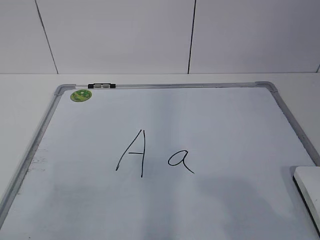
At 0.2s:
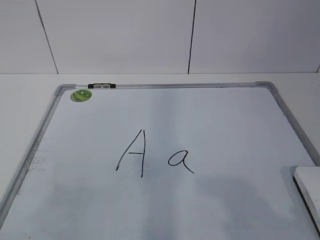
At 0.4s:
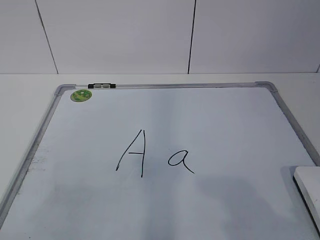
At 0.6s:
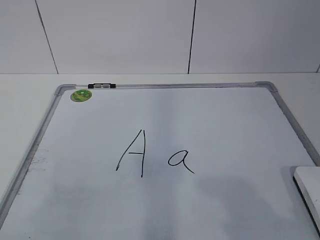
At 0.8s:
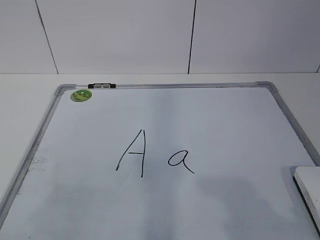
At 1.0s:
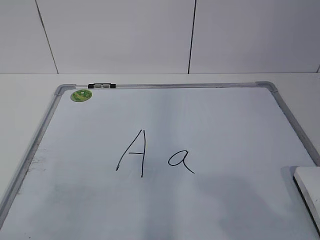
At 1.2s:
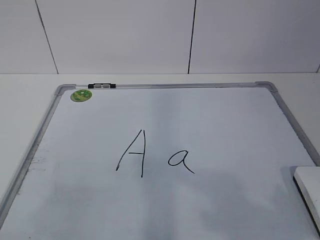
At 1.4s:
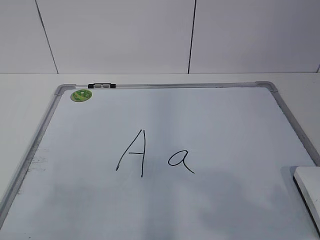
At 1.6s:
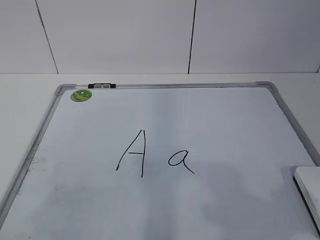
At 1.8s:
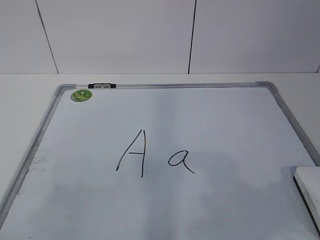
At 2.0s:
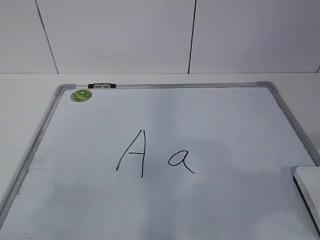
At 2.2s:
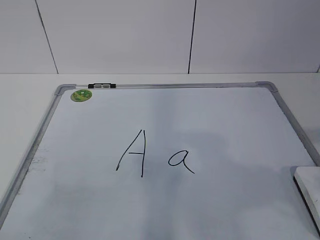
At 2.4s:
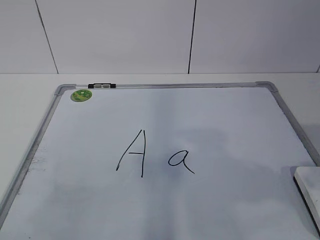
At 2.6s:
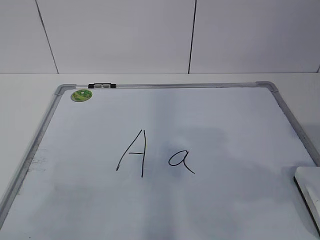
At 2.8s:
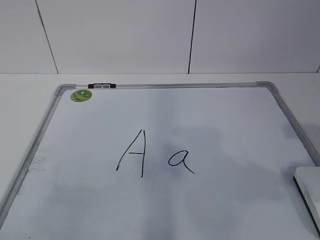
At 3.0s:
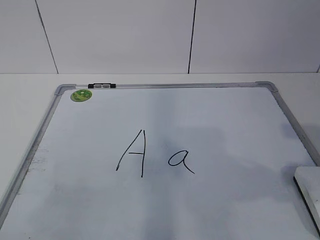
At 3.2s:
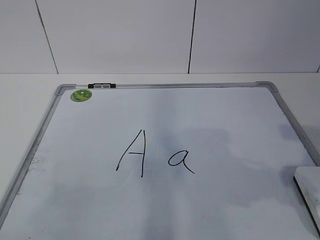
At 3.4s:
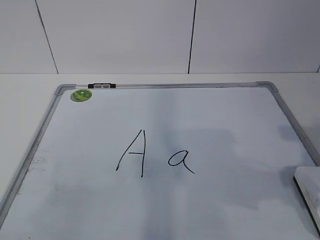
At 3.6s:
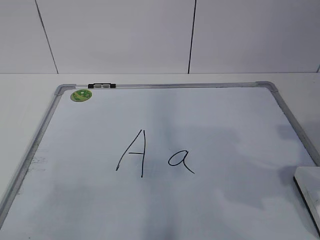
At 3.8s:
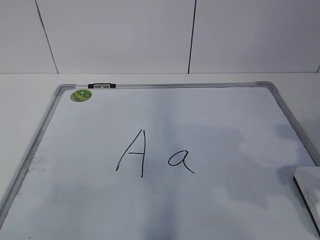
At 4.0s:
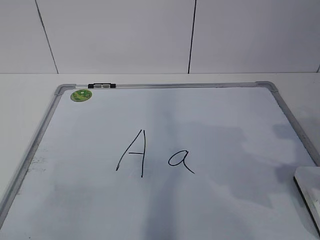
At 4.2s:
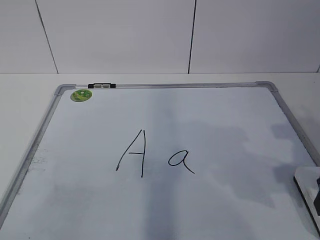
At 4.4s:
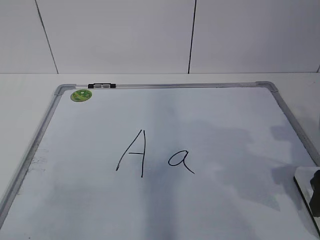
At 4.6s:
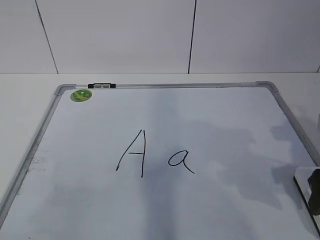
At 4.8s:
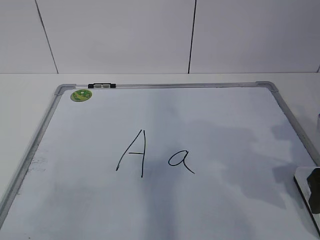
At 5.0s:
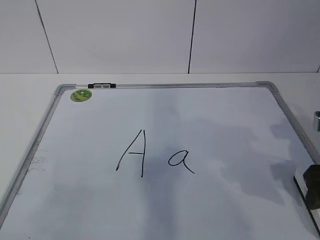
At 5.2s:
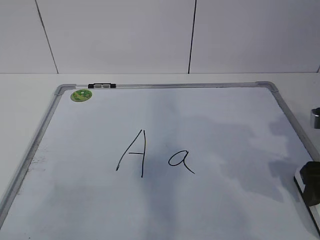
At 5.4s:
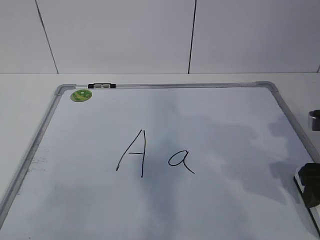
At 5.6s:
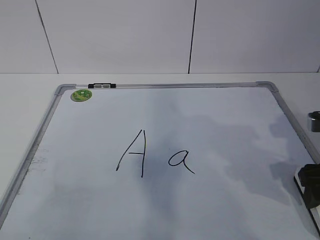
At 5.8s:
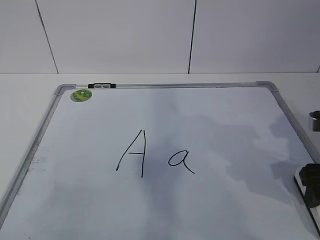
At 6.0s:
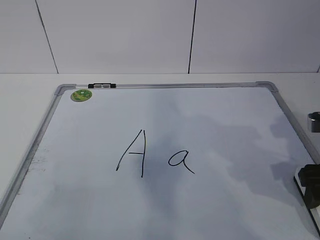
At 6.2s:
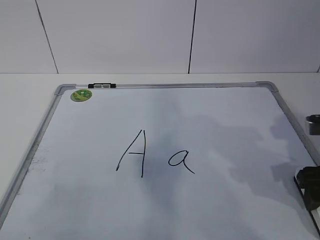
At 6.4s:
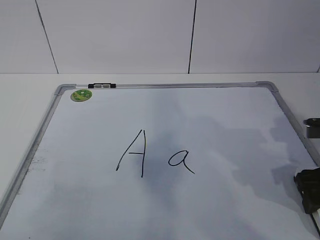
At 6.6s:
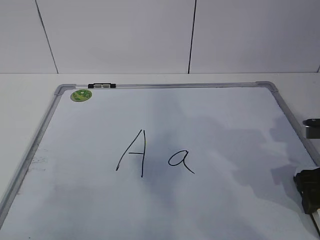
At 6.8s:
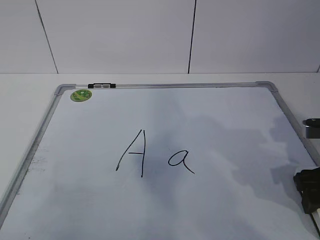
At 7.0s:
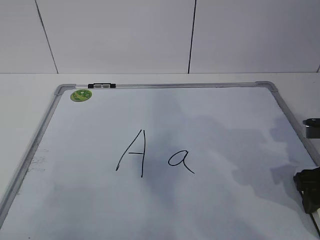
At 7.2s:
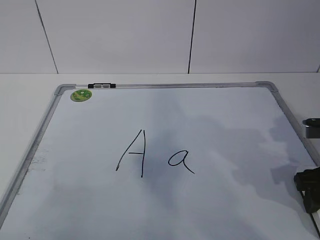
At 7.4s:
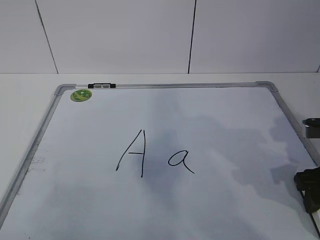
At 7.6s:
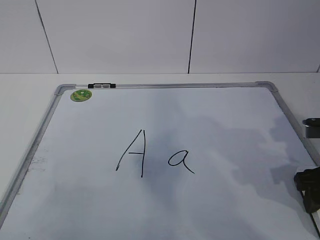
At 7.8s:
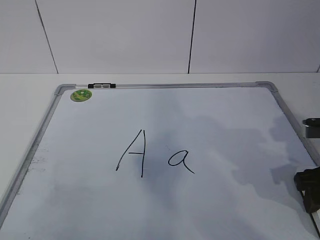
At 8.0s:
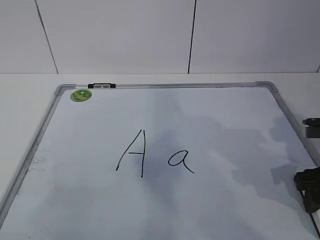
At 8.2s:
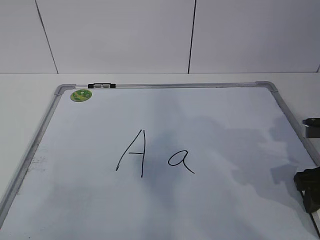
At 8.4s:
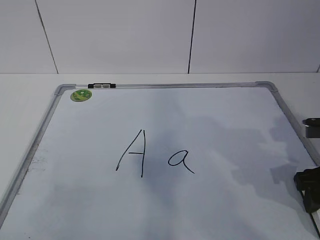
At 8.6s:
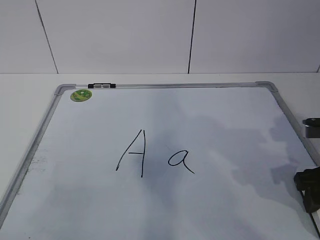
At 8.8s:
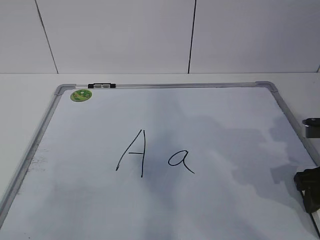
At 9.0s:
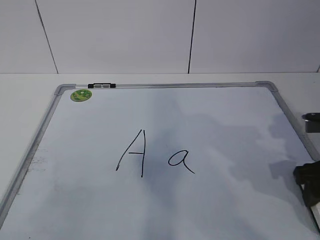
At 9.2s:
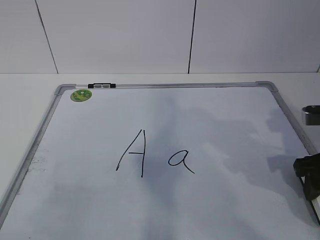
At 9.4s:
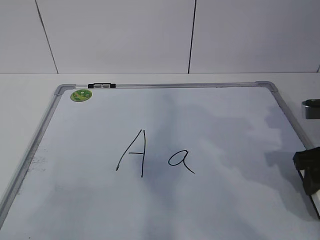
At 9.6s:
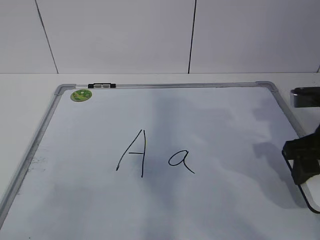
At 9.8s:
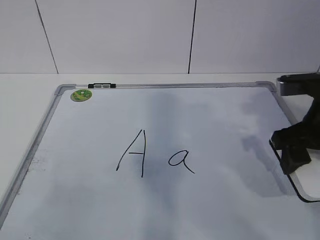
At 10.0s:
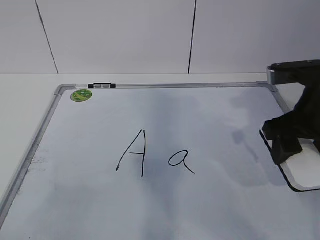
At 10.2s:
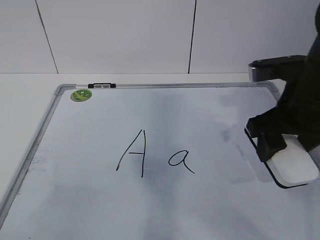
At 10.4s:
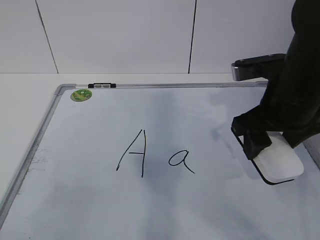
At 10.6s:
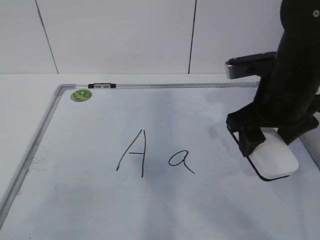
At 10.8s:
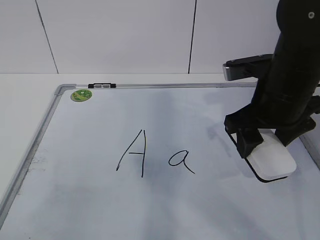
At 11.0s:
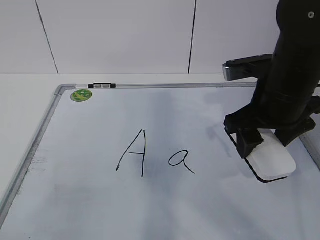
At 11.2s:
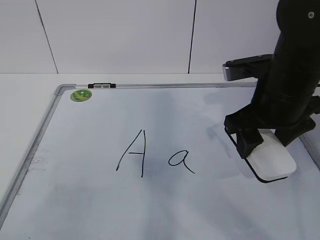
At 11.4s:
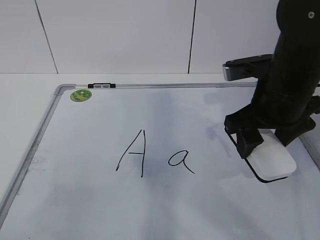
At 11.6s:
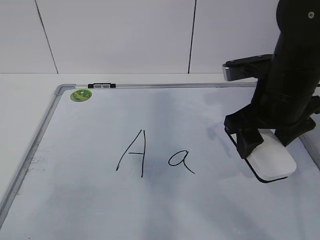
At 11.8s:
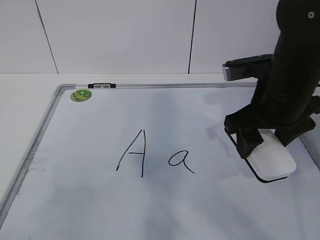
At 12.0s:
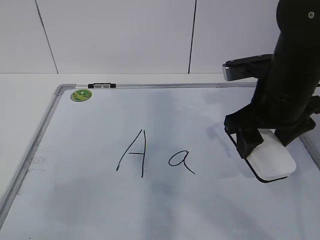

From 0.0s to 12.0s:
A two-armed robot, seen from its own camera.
Task of the whole recording: pick up the eraser on the blackboard and erase the letter "a".
From 3.0s to 4.4s: The right gripper is displaced forward and downward by approximately 10 cm.
From 4.4s to 6.0s: The grippers make only small movements.
From 6.0s to 7.6s: The right gripper closes.
From 7.6s to 9.0s: Neither gripper changes place.
From 9.0s to 10.4s: The right gripper moves to the left and upward, approximately 10 cm.
From 10.4s to 12.0s: The grippers make only small movements.

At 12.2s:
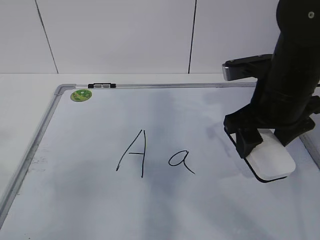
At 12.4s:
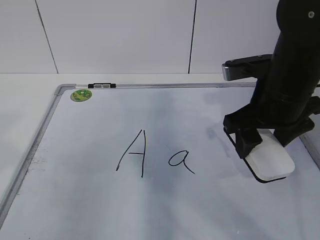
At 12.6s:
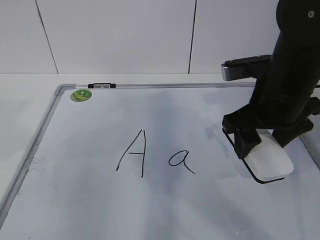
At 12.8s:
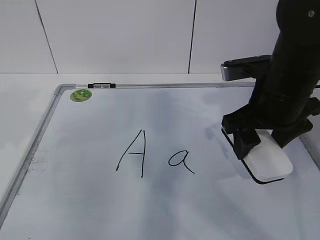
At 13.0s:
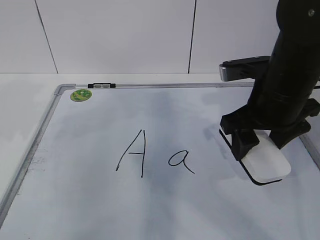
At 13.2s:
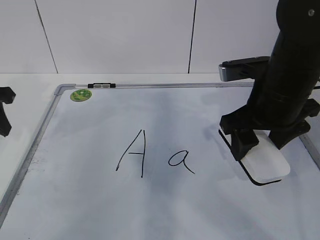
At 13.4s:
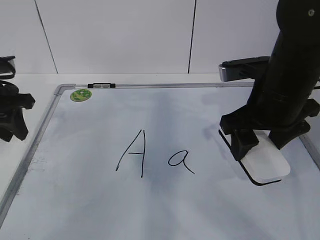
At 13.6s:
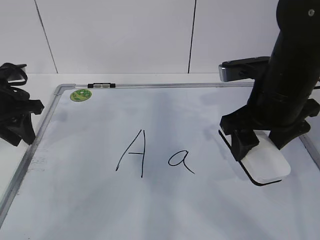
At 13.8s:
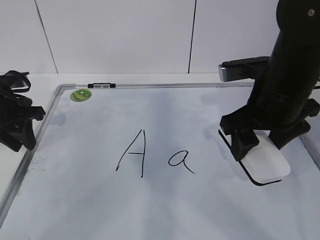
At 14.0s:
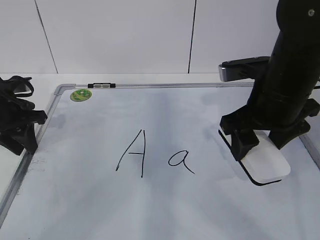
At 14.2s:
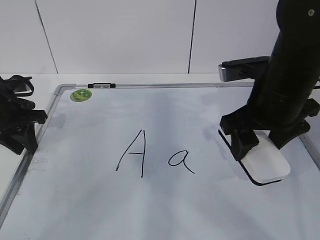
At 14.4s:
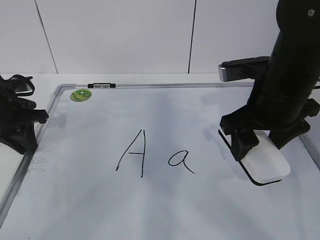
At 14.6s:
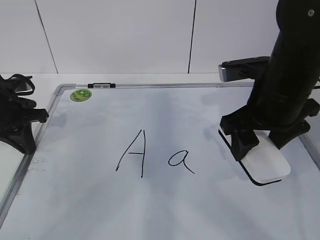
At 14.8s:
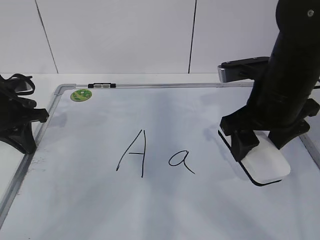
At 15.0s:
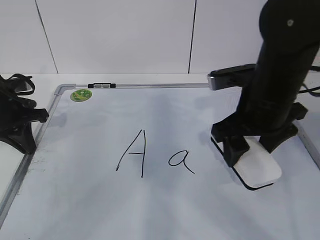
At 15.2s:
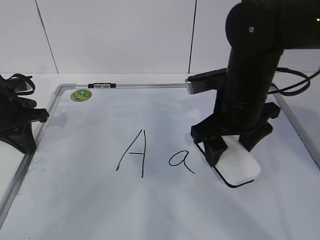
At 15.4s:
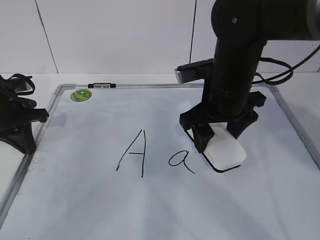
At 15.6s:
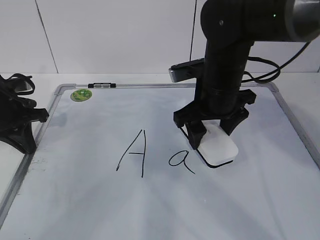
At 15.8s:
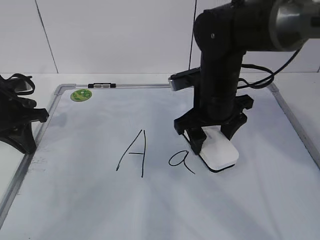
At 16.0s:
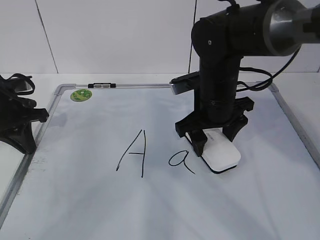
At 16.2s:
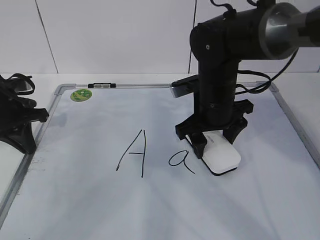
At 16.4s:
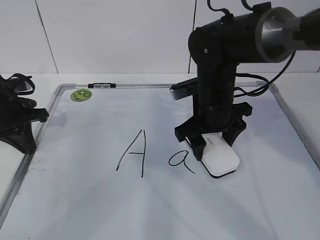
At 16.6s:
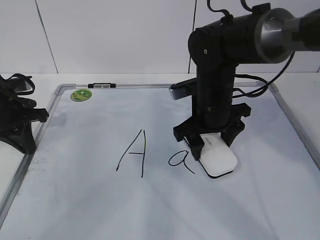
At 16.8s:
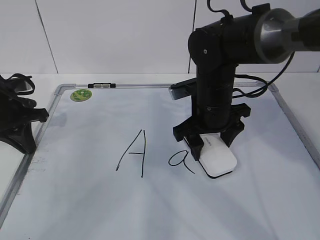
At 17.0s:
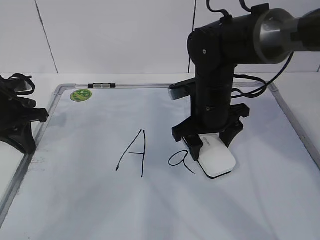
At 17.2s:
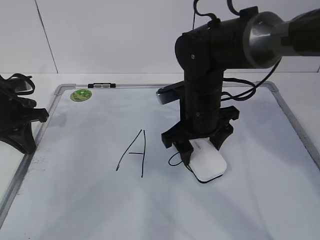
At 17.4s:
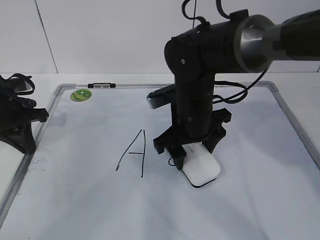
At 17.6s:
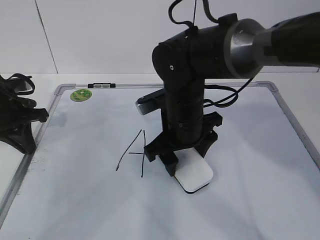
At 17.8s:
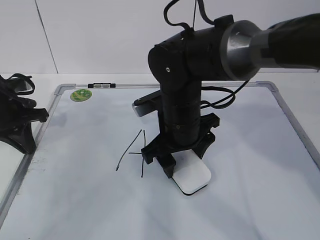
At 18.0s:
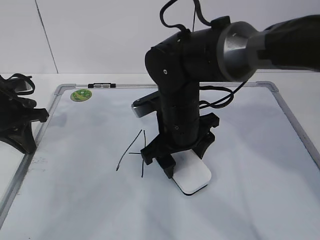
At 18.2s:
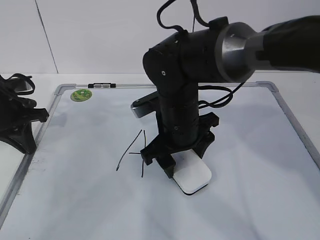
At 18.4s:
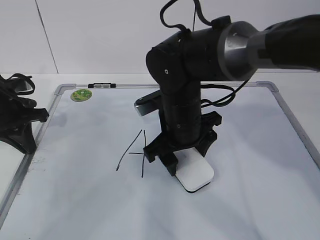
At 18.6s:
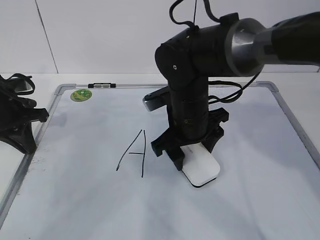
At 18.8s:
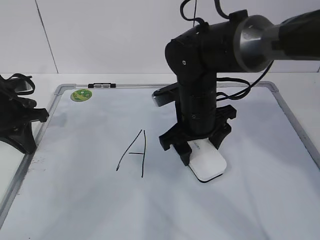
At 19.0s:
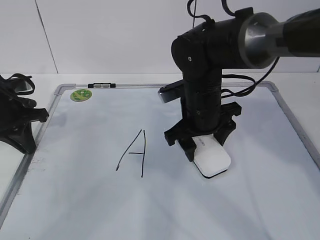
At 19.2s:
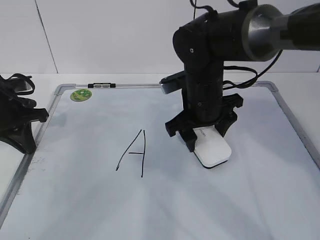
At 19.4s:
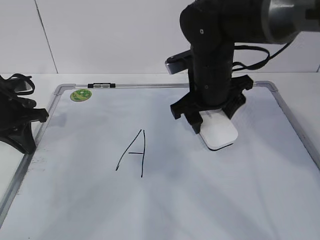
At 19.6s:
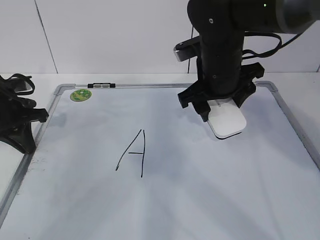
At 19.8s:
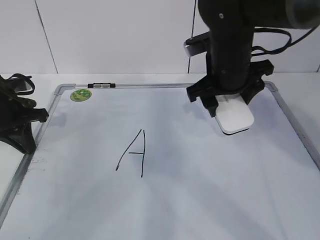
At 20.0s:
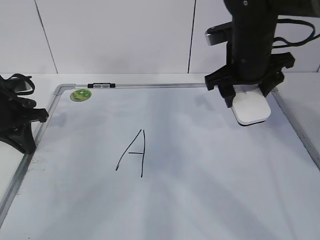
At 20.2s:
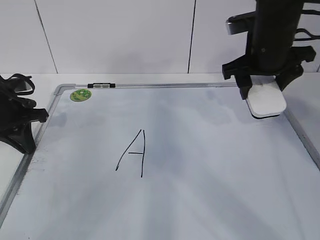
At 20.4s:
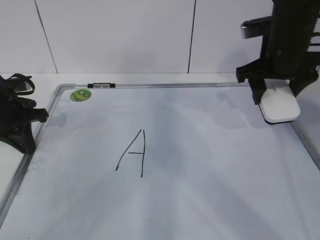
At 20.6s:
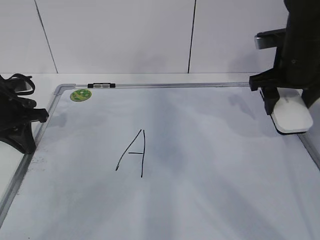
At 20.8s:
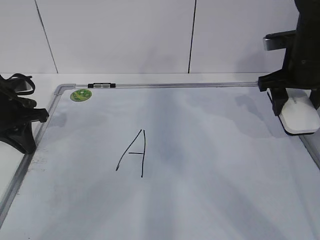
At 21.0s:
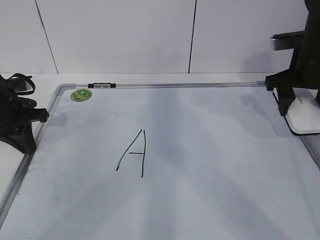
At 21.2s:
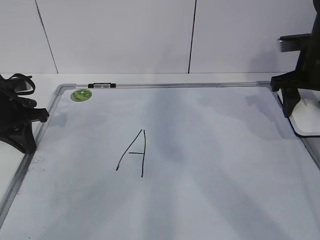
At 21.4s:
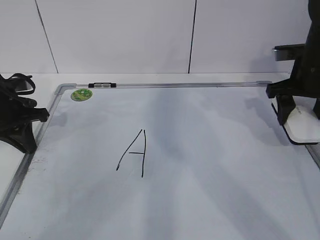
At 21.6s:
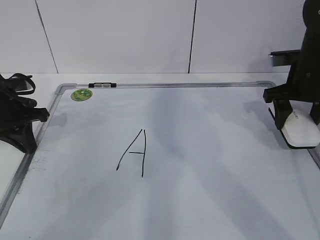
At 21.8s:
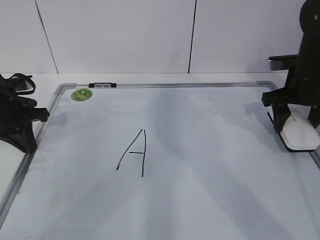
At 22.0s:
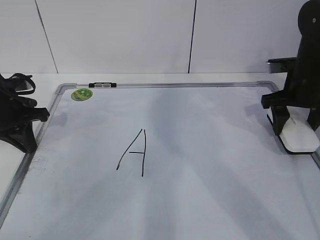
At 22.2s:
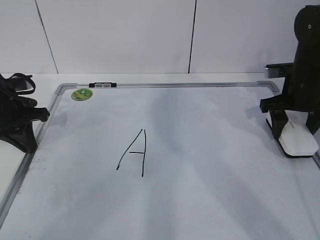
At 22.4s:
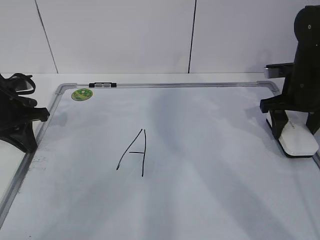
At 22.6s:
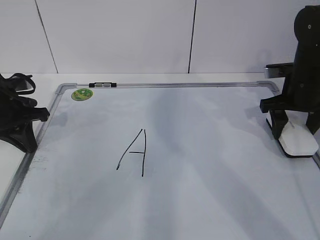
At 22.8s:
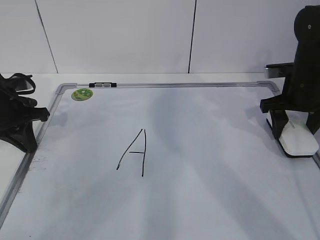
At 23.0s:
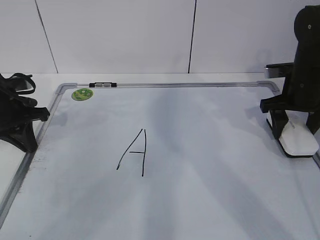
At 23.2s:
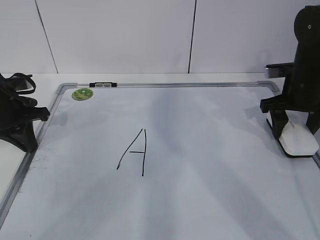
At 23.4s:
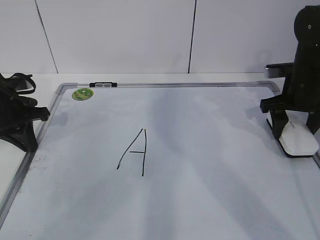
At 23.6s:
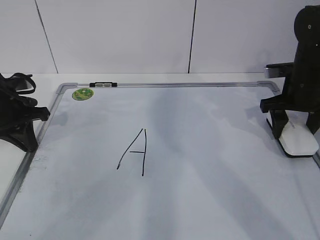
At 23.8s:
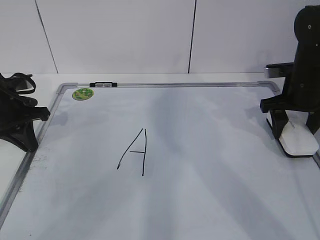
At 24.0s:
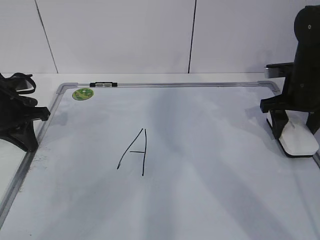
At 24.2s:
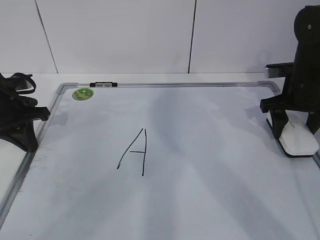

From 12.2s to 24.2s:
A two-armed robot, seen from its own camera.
Task of the whole recording: pick up the eraser on the blackboard and erase the letter "a".
Step, from 12.4s to 15.6s: Erase the letter a with your right hand.
Step, from 16.0s to 20.2s: Put down the eraser with your right hand.
From 12.2s to 13.8s: The left gripper shifts roughly 30 cm forward and downward.
From 13.8s to 15.2s: The right gripper changes place by some 5 cm. The left gripper closes up.
From 15.2s to 16.6s: The right gripper ends up some 5 cm from where it was.
From 16.6s to 18.2s: The right gripper is displaced to the left by approximately 5 cm.
From 18.2s to 19.8s: The right gripper moves to the right and upward, roughly 10 cm.
From 19.8s to 21.2s: The right gripper goes about 15 cm to the right.
From 21.2s to 22.6s: The right gripper goes approximately 5 cm downward.
From 22.6s to 24.2s: The two grippers keep their place.
